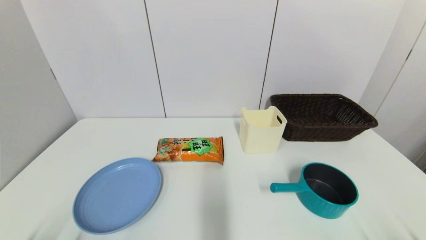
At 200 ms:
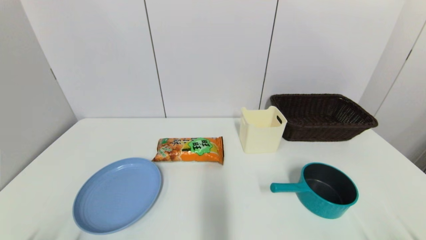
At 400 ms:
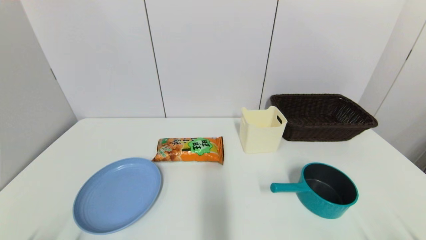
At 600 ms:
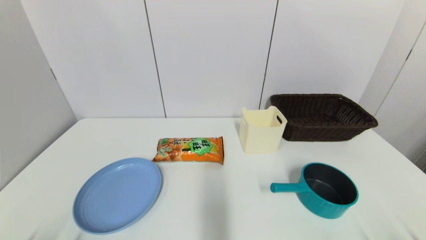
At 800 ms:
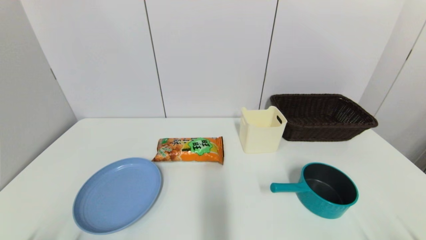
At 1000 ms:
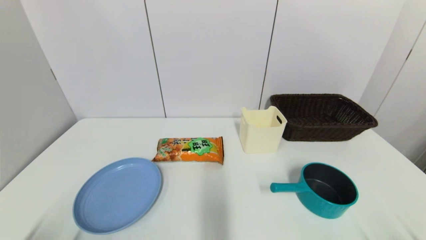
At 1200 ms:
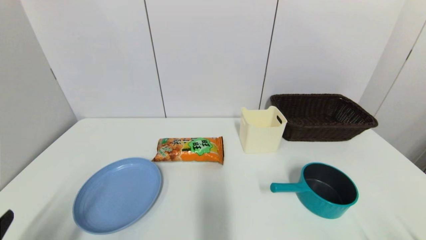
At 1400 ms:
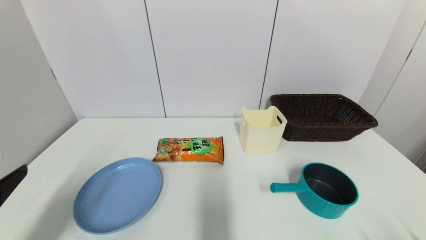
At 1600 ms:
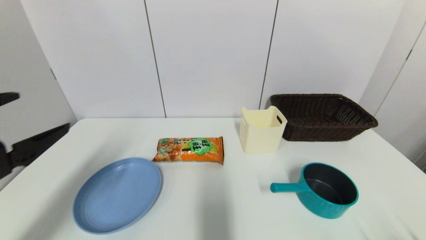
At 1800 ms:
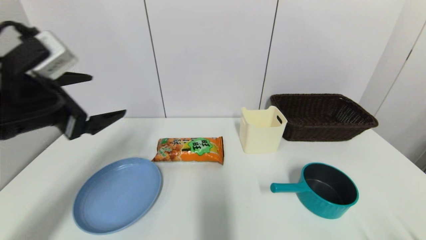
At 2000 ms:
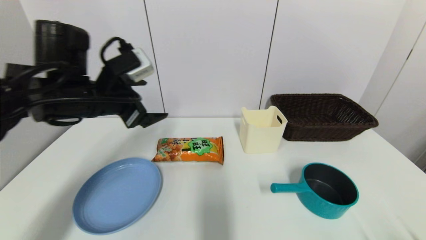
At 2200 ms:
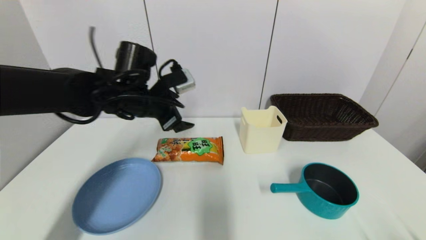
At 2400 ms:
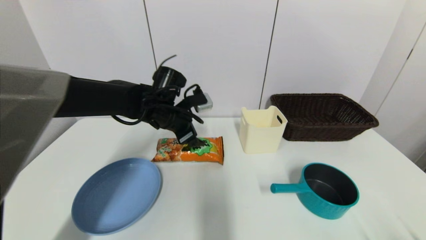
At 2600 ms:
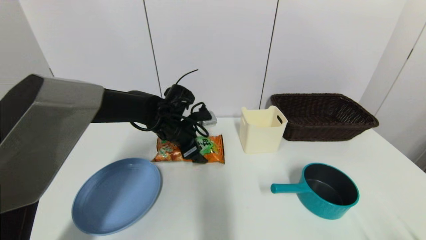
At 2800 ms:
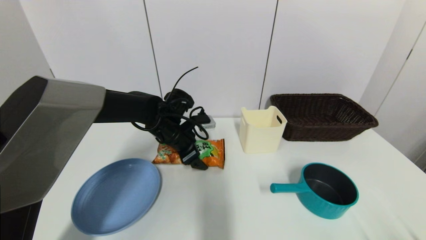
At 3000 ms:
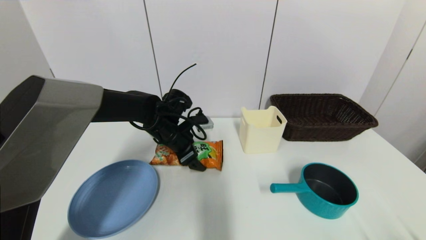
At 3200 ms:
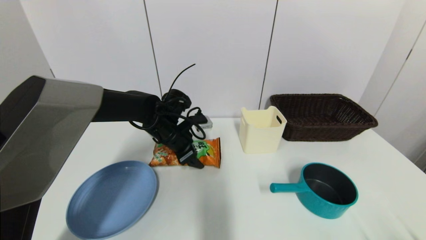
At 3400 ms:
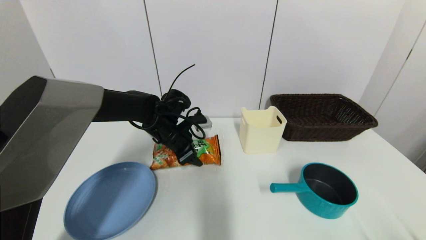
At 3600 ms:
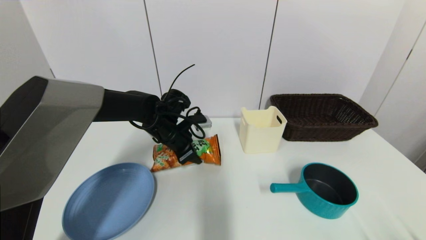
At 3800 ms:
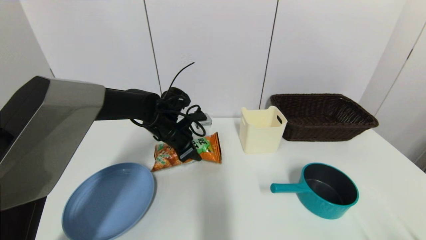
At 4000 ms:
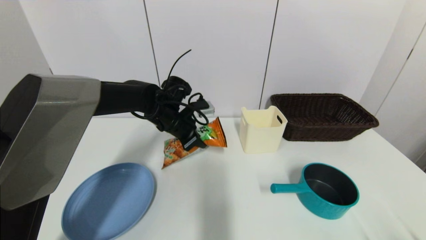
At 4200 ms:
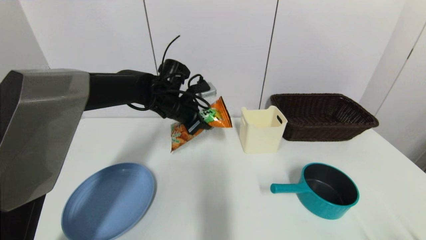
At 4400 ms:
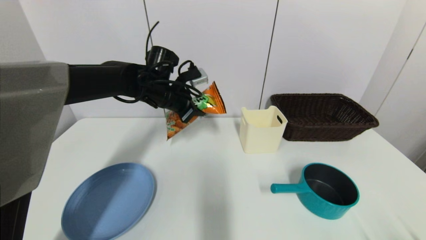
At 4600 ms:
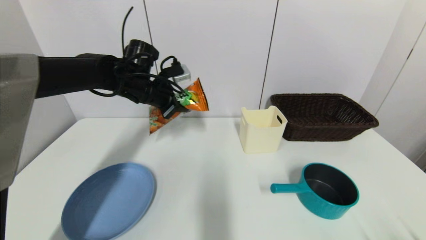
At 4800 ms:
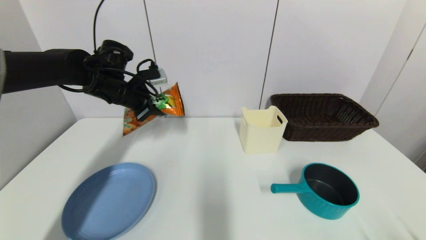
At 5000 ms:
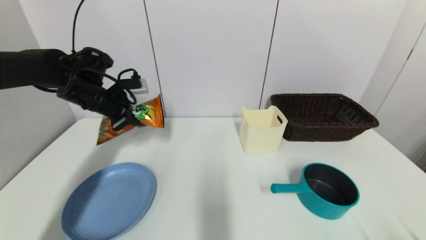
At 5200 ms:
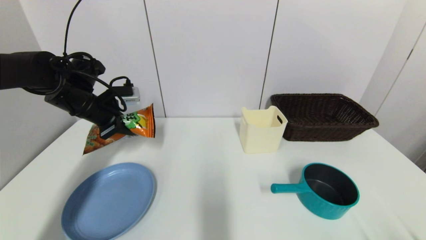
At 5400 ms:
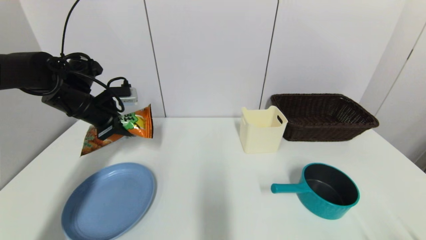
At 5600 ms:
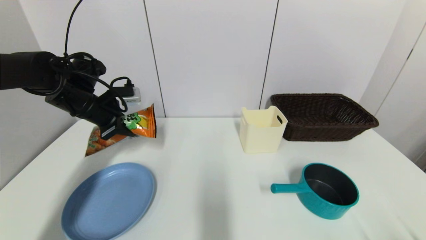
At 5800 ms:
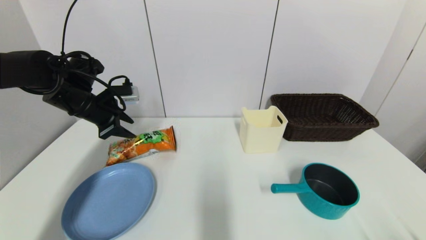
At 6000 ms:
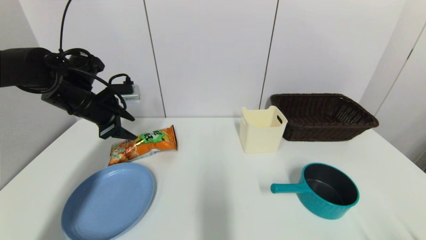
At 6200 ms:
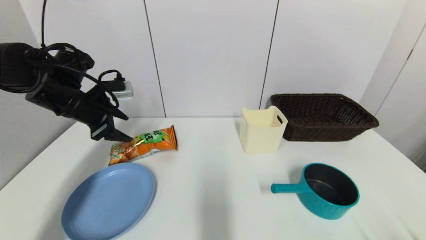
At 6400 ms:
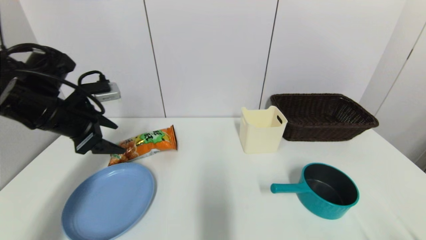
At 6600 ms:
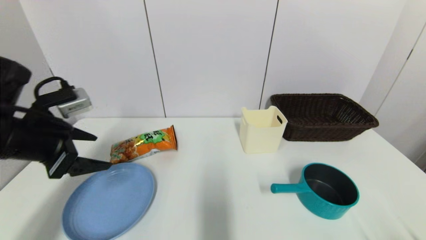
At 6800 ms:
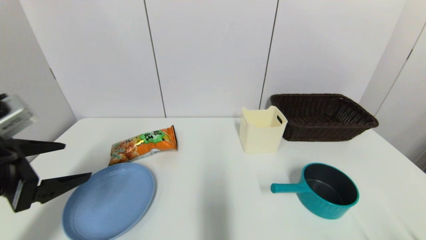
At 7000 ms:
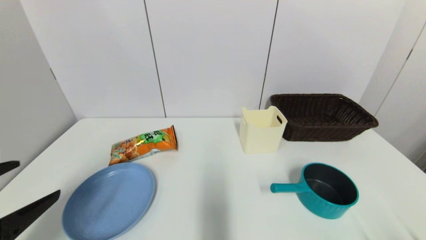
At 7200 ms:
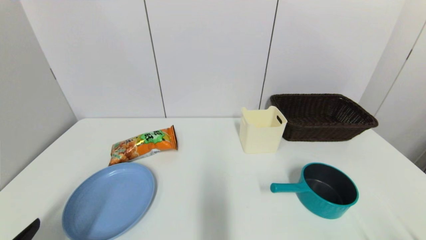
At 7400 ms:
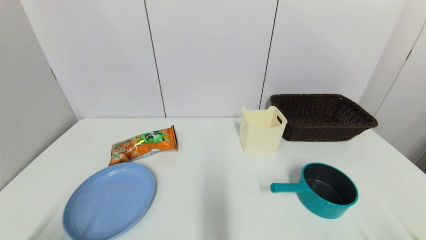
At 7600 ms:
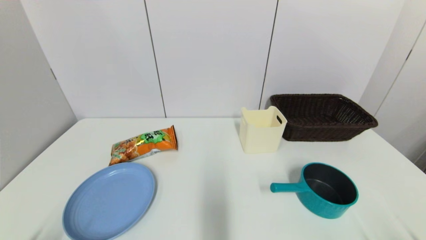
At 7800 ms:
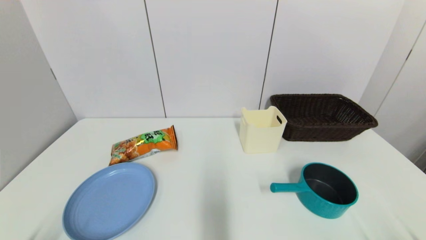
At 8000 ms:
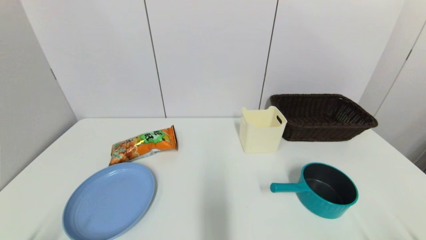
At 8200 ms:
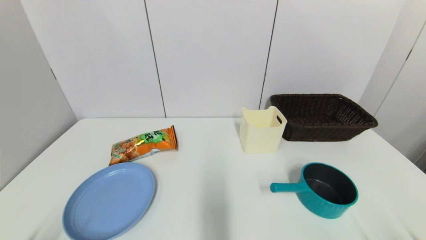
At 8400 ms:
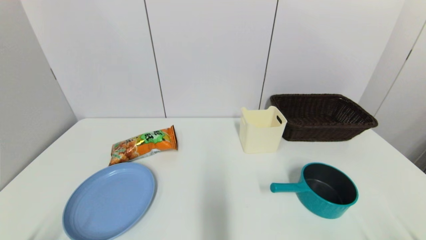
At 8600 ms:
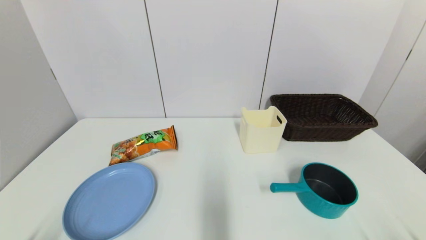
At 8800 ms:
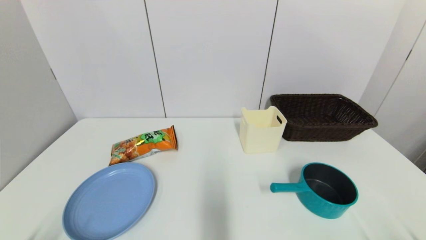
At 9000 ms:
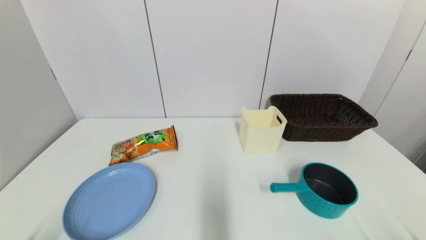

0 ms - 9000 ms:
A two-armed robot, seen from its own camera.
Step, 1000 ms - 3800 ms: Grasp the cookie with left gripper.
Step, 4000 ms - 5800 ms: Place the cookie on the table with left gripper.
0 ms - 1600 ms: The left gripper heads upward and forward, covering approximately 25 cm.
1600 ms - 3000 ms: The left gripper shifts approximately 35 cm forward, to the right and downward.
3000 ms - 4400 ms: The left gripper moves upward, about 10 cm, and closes.
4400 ms - 6000 ms: The left gripper goes approximately 15 cm to the left, and opens up.
6000 ms - 7600 ms: The left gripper moves backward and downward, some 40 cm, and opens up.
7600 ms - 9000 ms: Both grippers stay about where they are.
